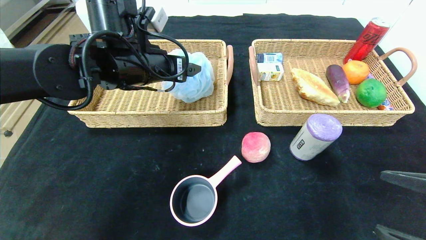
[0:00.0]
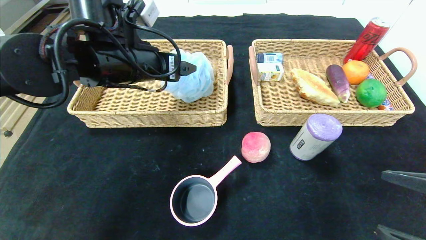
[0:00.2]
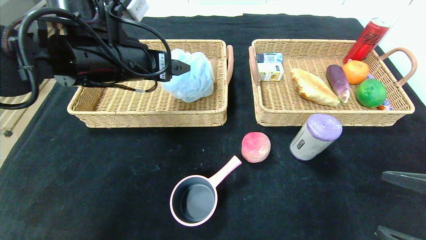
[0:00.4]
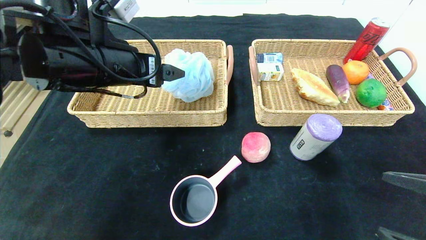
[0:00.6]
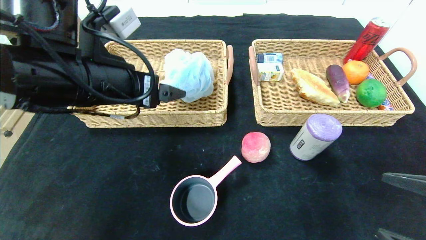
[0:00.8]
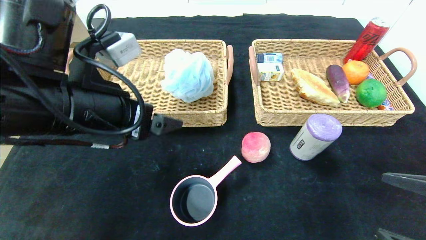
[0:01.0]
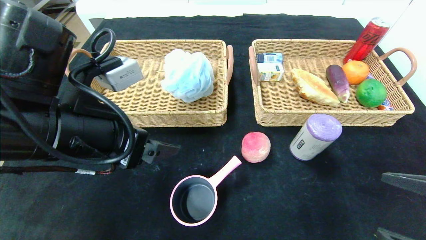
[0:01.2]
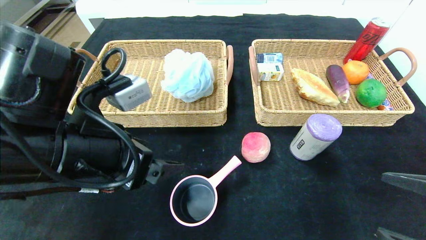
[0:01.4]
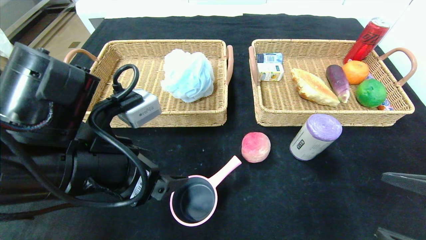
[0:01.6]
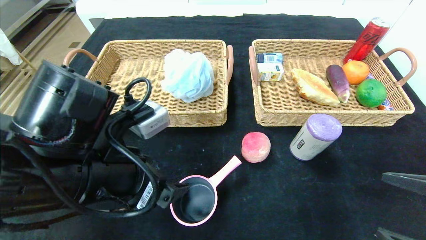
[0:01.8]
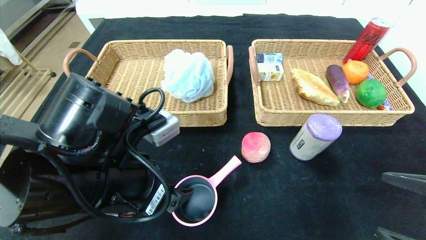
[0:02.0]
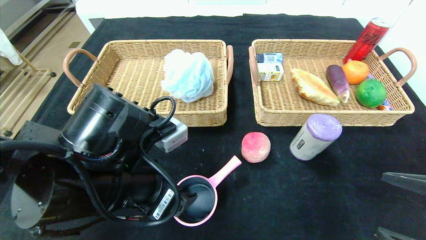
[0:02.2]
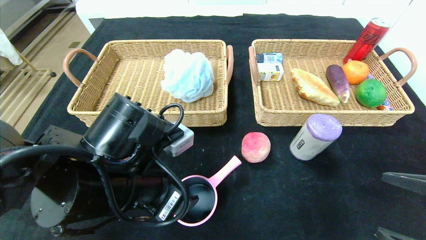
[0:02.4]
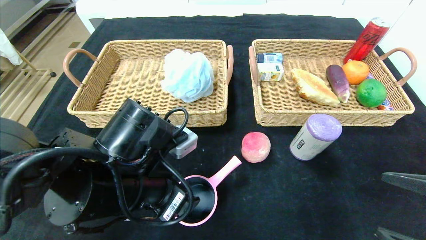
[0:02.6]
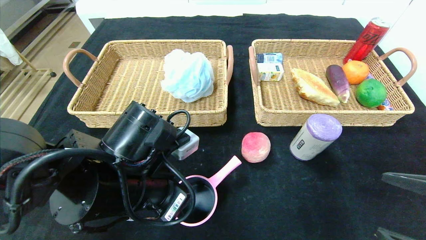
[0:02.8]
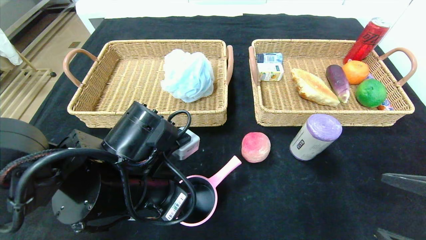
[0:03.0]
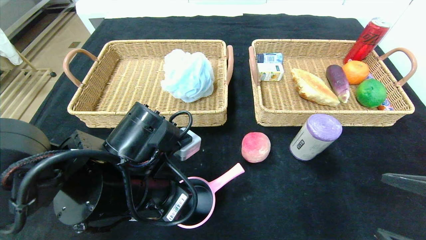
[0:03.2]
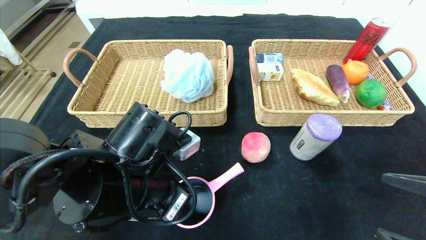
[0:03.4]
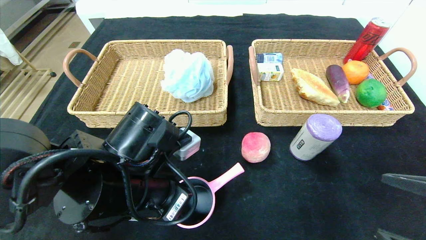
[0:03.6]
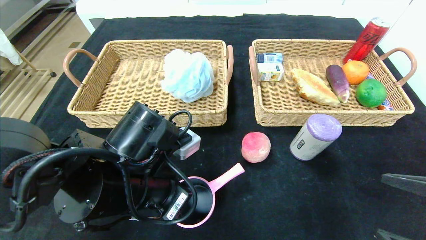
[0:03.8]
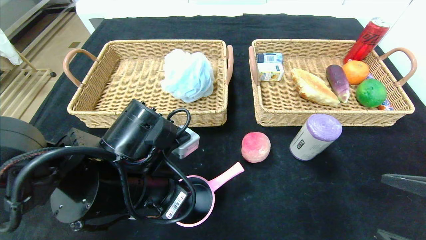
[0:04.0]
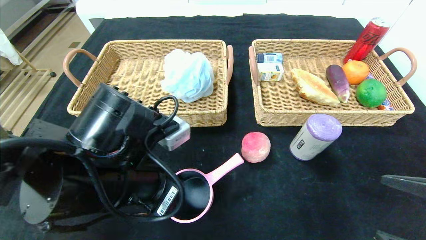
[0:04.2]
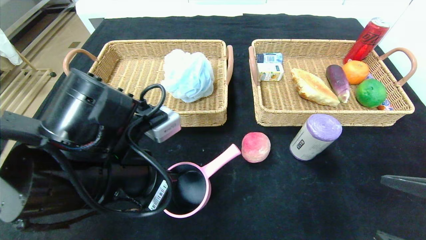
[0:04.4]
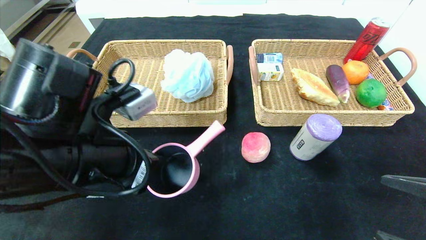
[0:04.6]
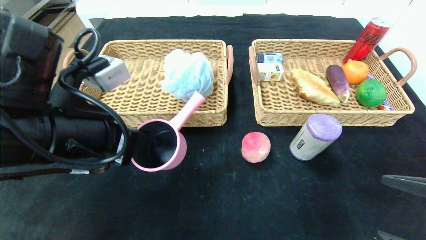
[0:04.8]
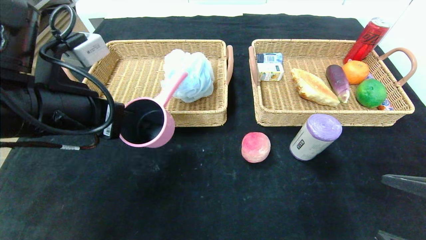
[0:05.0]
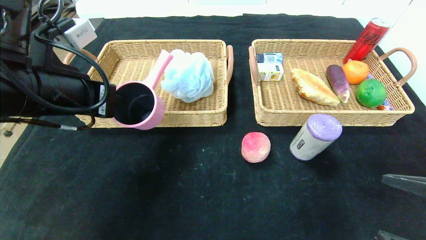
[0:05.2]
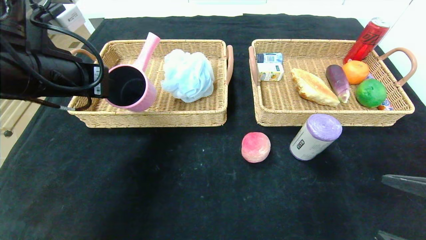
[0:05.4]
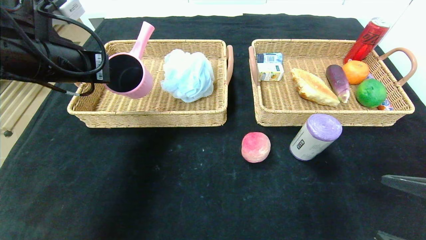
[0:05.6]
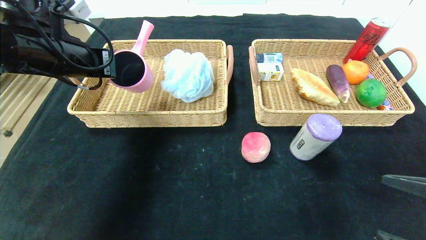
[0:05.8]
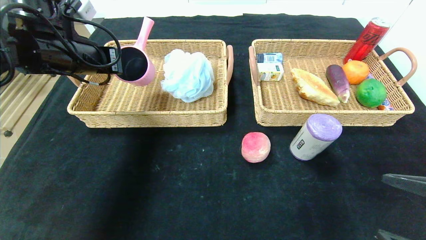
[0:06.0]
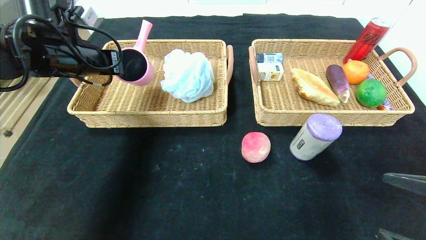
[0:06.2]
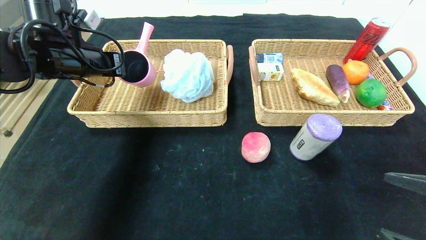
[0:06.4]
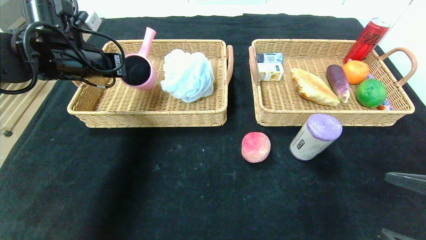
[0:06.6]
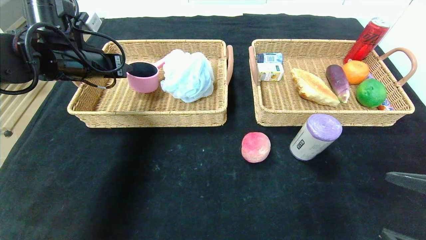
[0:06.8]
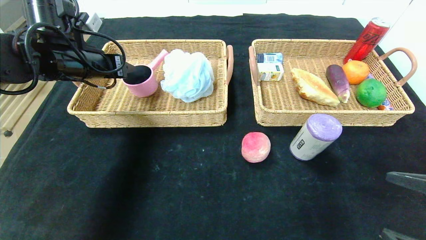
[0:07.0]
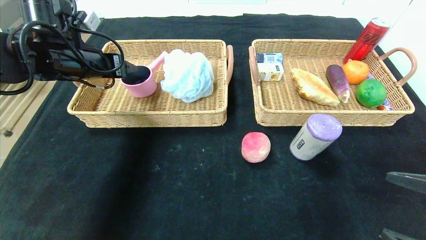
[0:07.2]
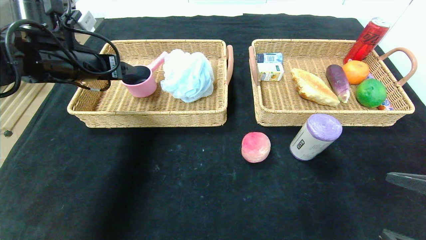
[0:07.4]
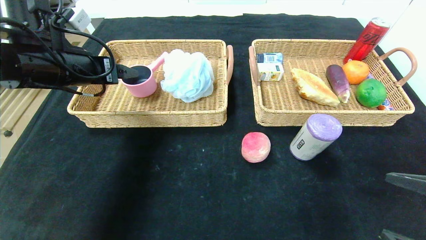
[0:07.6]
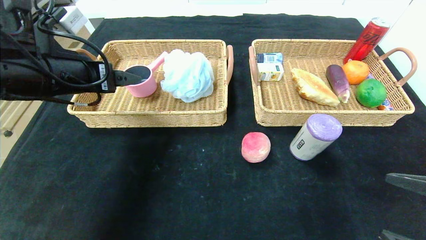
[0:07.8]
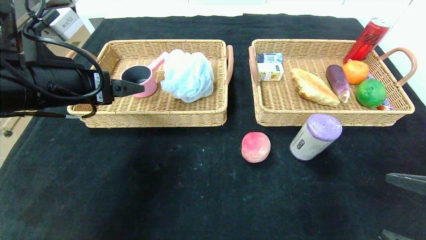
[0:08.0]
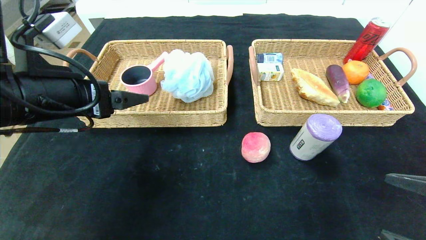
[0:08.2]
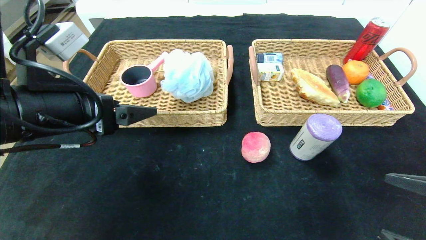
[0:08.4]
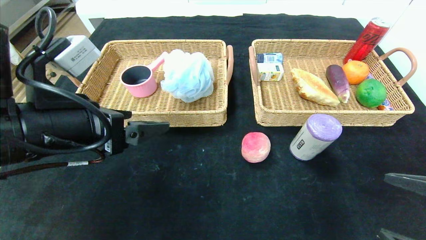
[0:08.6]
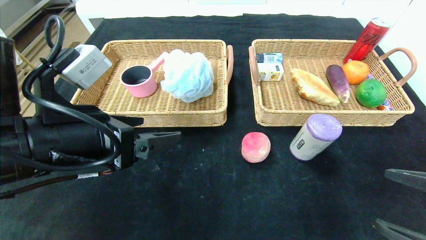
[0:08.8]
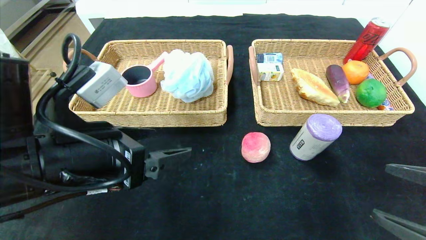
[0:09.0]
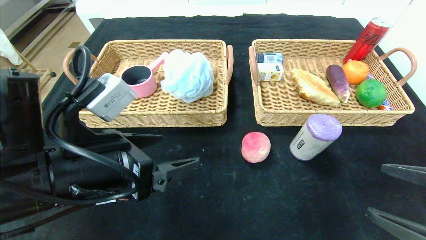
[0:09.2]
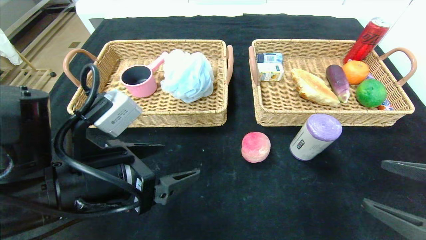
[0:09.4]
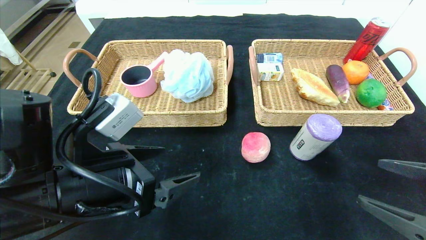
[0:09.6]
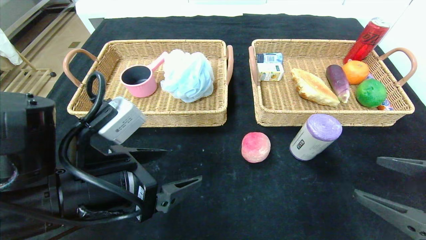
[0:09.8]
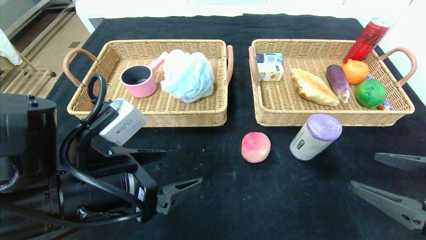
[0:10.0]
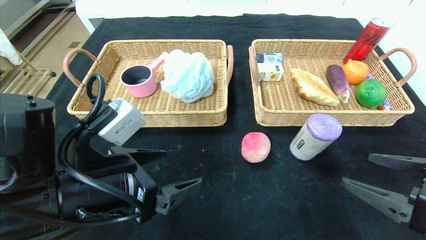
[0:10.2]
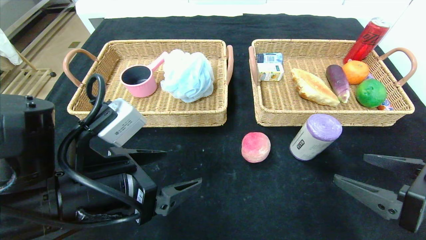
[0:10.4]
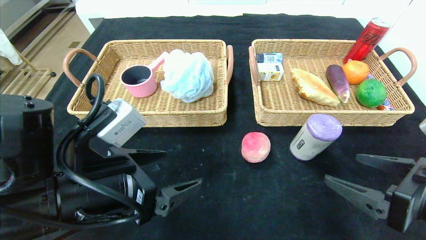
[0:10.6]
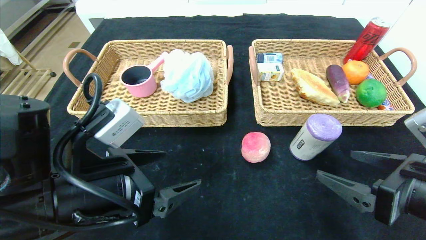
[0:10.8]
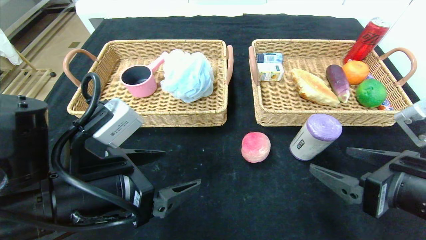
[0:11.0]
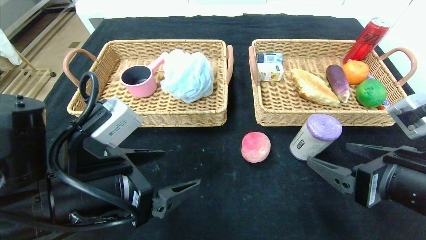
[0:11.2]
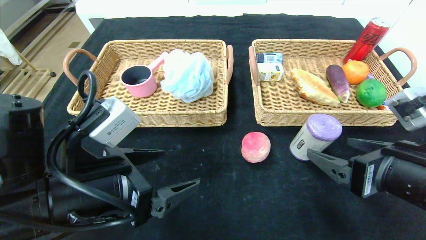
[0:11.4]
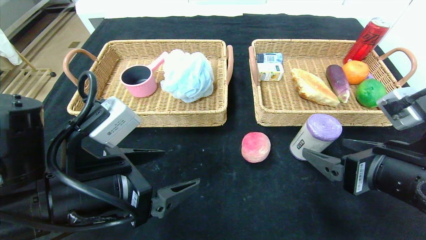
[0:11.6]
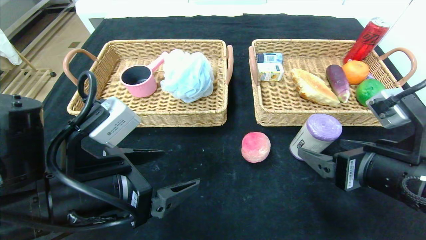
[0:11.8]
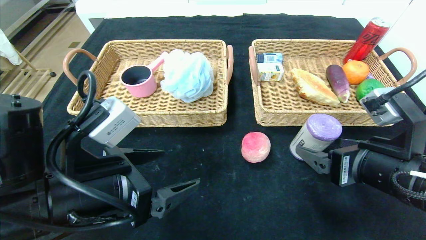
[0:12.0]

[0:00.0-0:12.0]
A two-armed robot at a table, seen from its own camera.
Step, 0:01.4 to 0:10.0: Pick up the pink pot and put it in the left basket.
0:00.0 to 0:01.6: The left gripper shifts roughly 15 cm backward.
0:01.6 to 0:03.0: The left gripper shifts some 5 cm downward, and closes.
0:03.0 to 0:04.4: The left gripper closes.
0:04.4 to 0:06.0: The left gripper goes roughly 20 cm forward, to the left and upward.
0:06.0 to 0:07.6: The left gripper opens up.
0:07.6 to 0:09.0: The left gripper is displaced backward, to the right and downward by some 20 cm.
0:09.0 to 0:10.4: The grippers make only small movements.
0:10.4 to 0:12.0: The right gripper goes approximately 5 cm to the left.

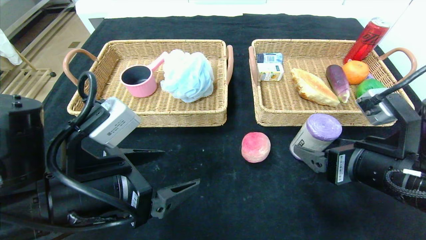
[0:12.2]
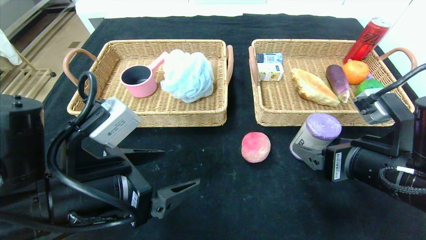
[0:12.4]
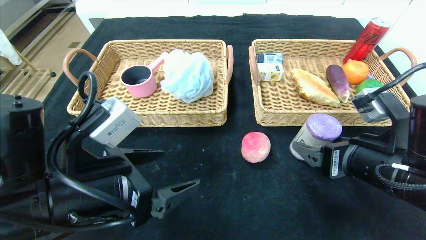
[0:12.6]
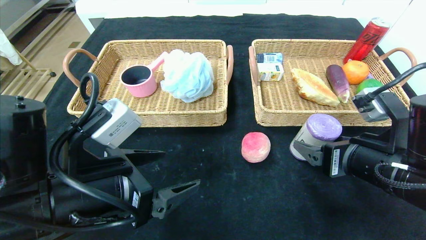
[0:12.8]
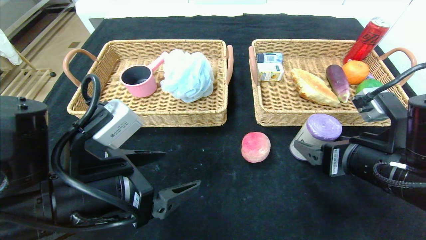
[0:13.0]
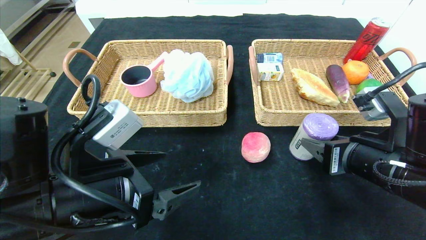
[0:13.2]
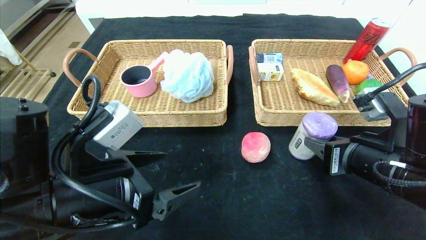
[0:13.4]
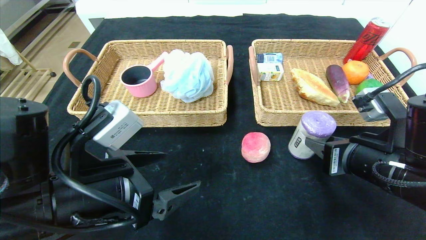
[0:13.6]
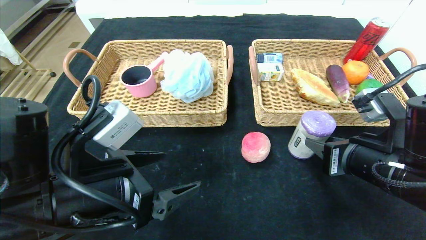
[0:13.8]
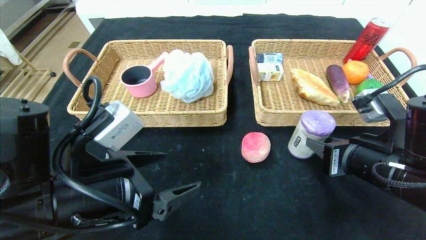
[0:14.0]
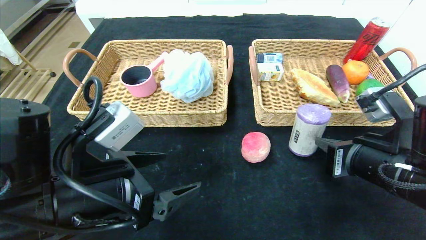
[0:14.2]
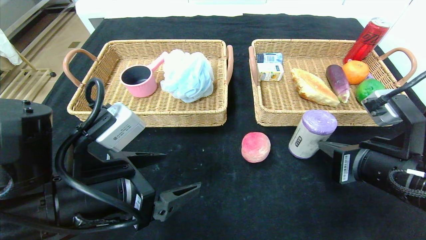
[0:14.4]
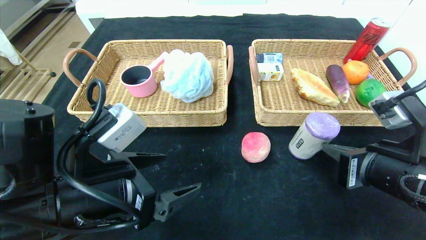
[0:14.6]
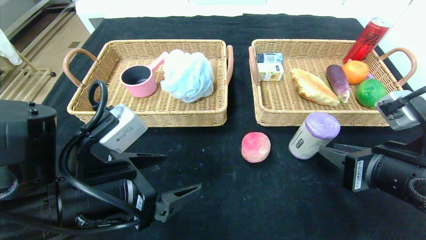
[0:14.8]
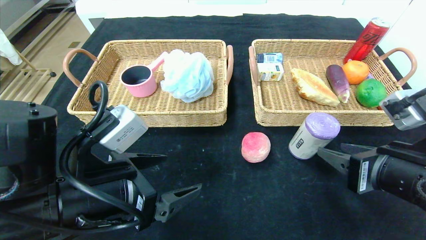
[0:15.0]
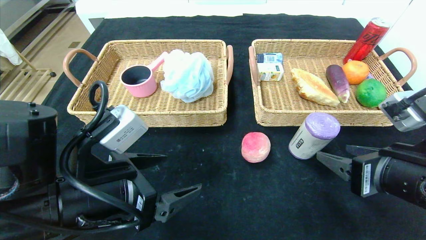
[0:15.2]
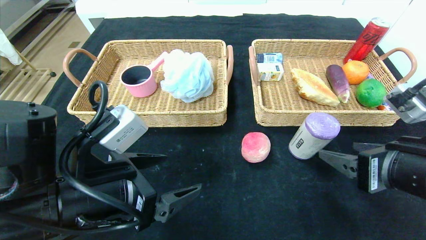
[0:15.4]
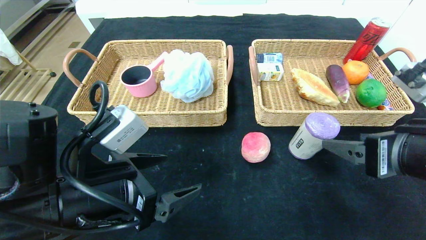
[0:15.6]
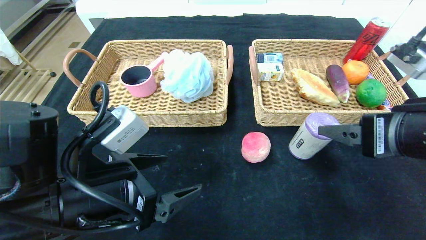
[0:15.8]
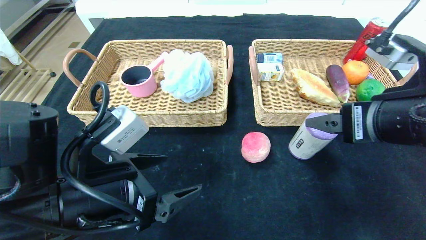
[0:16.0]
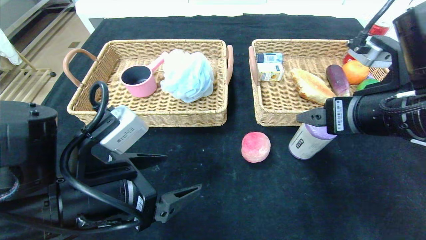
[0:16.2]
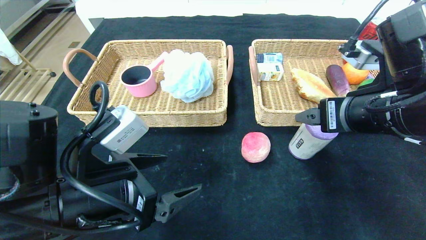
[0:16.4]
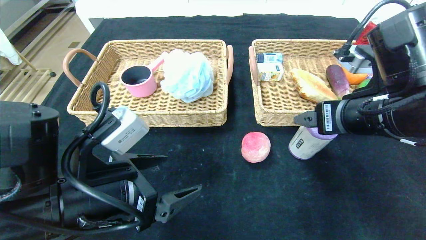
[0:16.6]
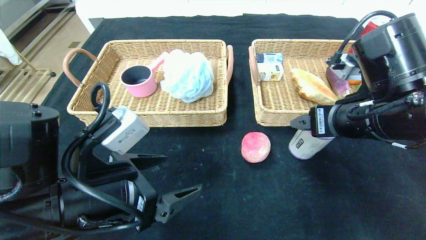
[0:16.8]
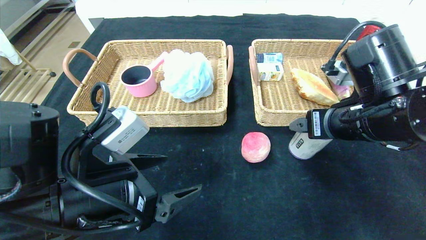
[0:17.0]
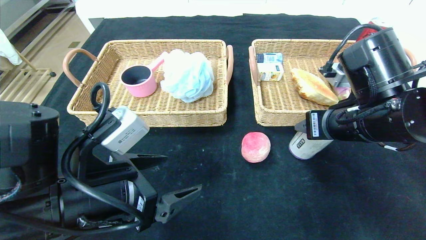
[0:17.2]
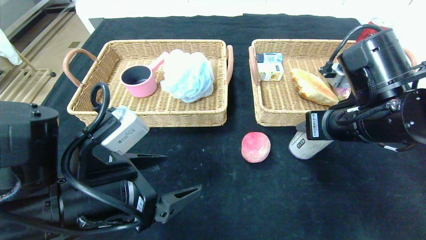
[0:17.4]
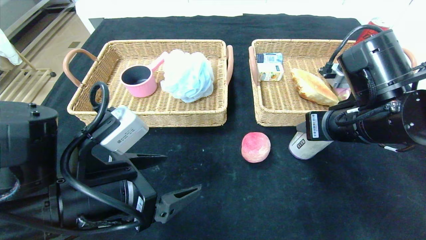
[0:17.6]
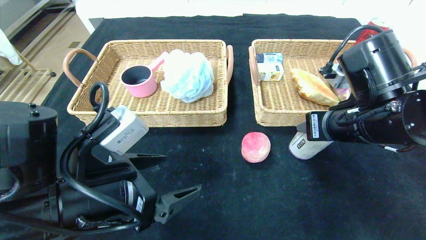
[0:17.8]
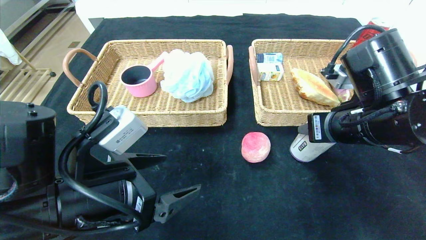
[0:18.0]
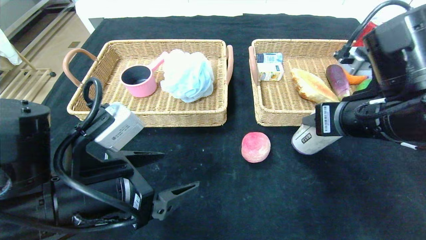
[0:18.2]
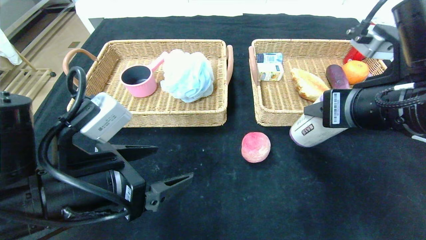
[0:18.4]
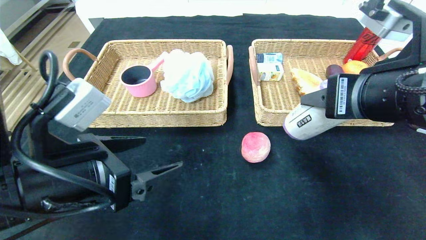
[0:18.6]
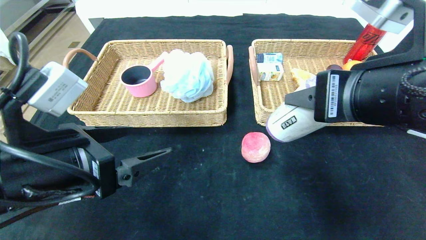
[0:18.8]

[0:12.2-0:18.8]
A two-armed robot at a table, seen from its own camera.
0:12.2 to 0:13.8: The right gripper closes.
0:13.8 to 0:15.4: The right gripper ends up approximately 5 cm from where it was, and opens.
0:15.4 to 0:17.2: The right gripper moves forward, some 10 cm.
0:17.2 to 0:18.8: The left gripper moves about 5 cm. The right gripper travels backward and upward by roughly 10 cm.
